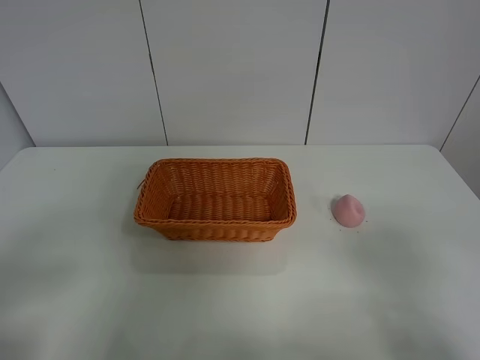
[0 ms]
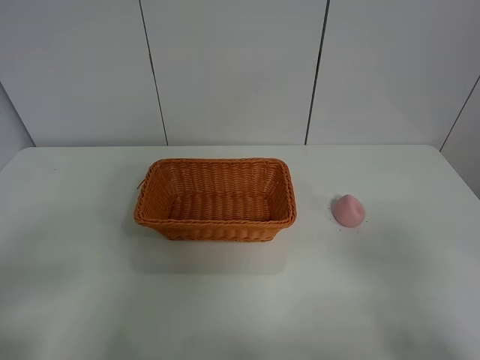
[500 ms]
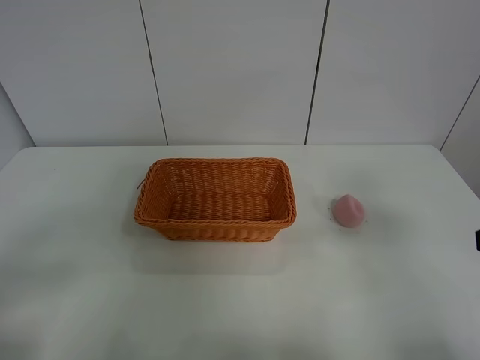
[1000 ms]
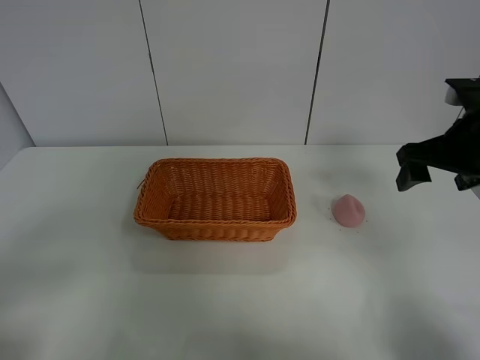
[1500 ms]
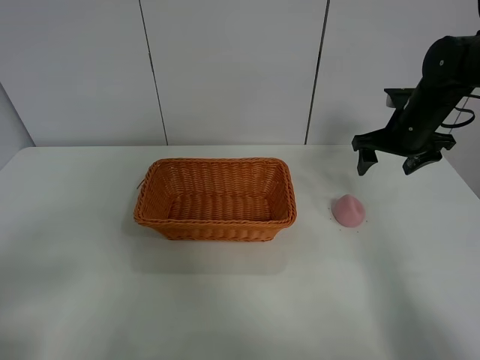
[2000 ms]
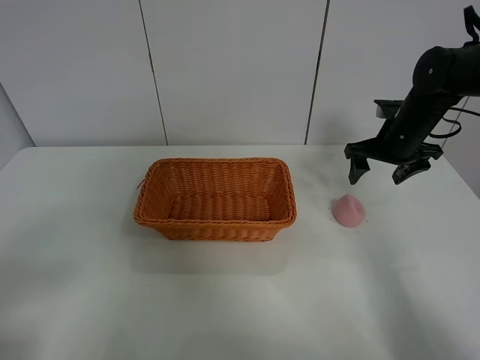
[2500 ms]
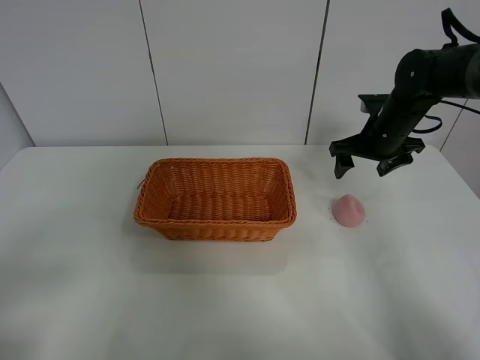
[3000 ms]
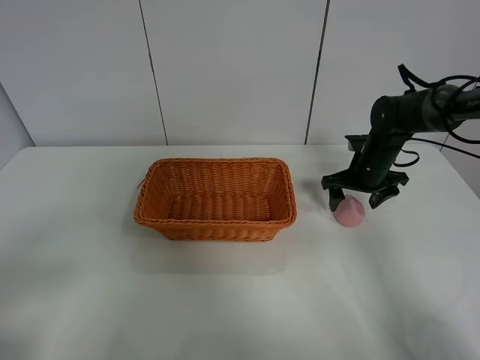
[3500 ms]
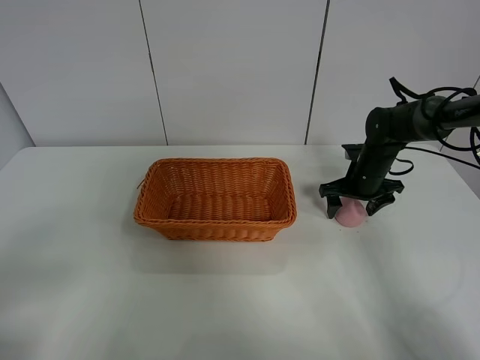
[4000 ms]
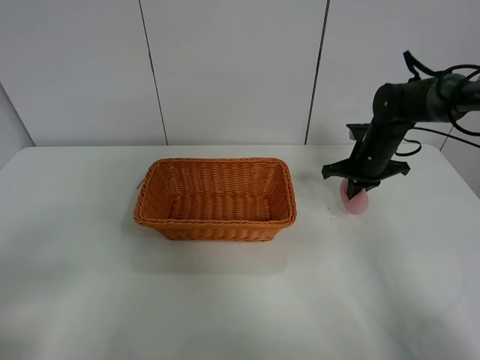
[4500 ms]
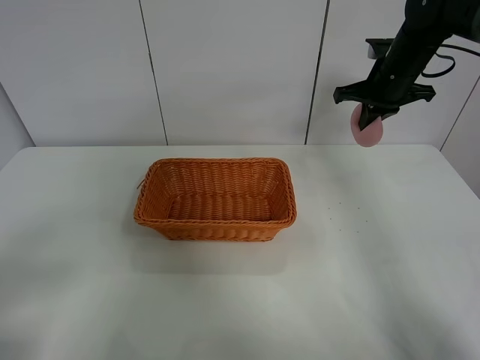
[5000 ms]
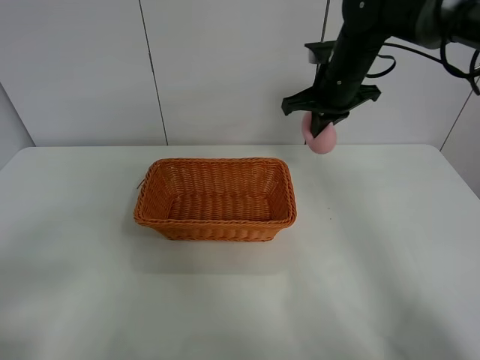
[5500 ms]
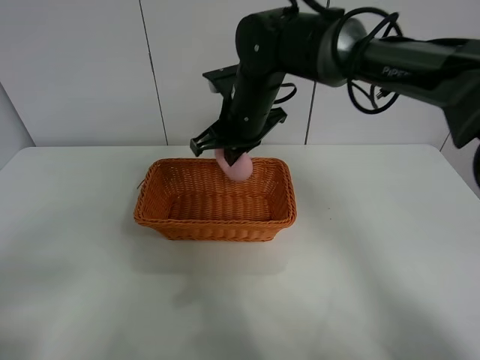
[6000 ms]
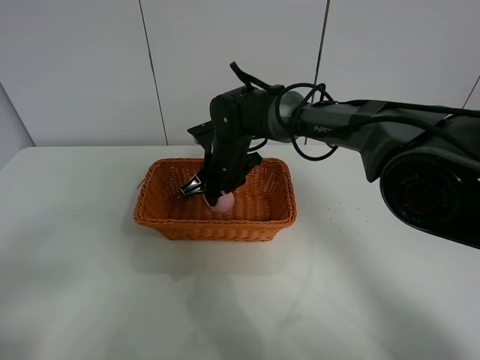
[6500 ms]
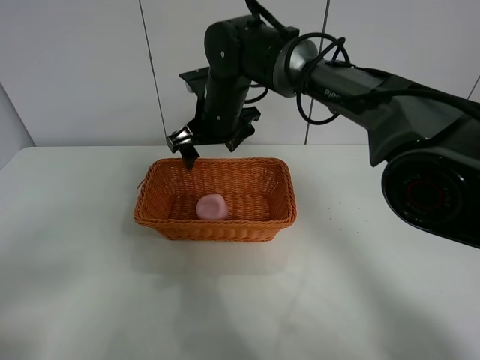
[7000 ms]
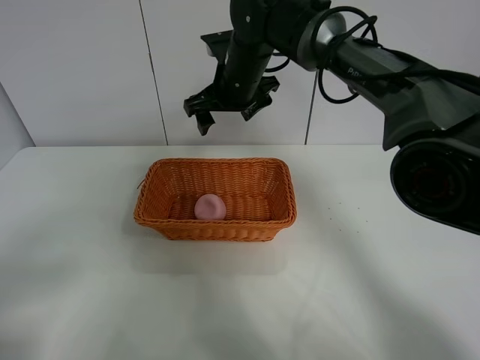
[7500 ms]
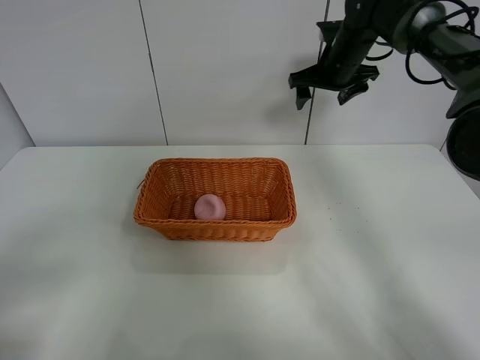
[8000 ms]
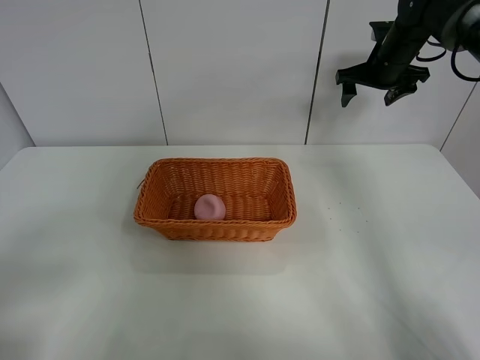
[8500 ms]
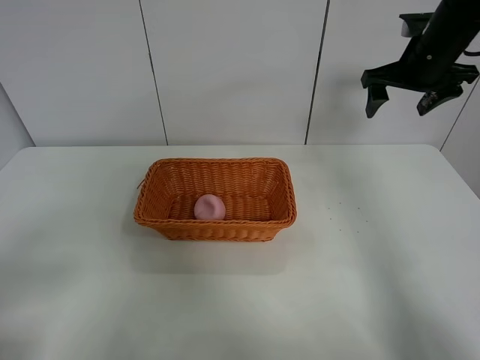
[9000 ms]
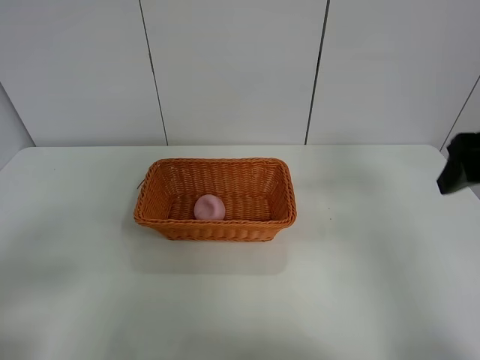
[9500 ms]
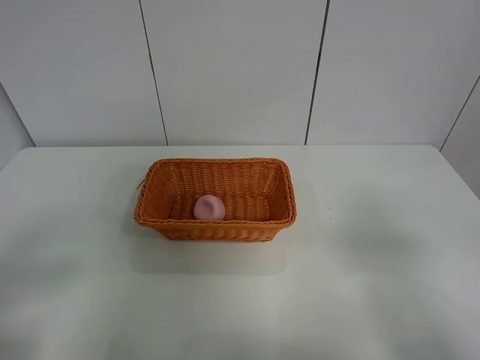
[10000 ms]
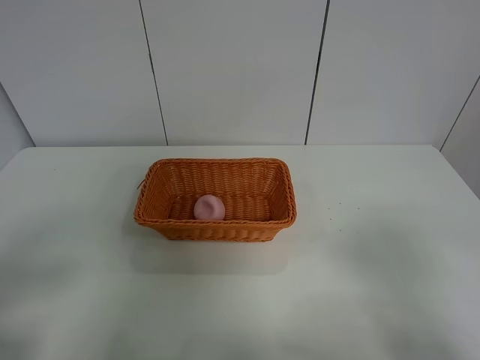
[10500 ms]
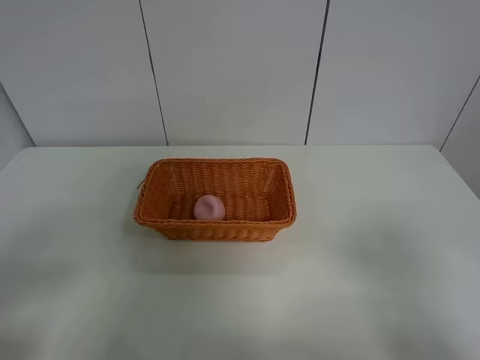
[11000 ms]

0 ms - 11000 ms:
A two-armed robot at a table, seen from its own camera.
Step, 0 ms - 4000 ms: Grasp the peach with right gripper.
Step, 4500 ms - 7000 ms: Place the peach in the basket with right gripper.
0 ms - 2000 ms: The right gripper shifts approximately 40 cm forward.
2000 ms - 3500 ms: The right gripper travels downward by approximately 10 cm.
3500 ms - 5500 ms: The right gripper goes roughly 20 cm upward and to the left, and closes up.
5500 ms - 7500 ms: The right gripper shifts about 10 cm to the left, and opens up.
7500 ms - 9000 ms: The right gripper shifts approximately 25 cm to the right.
9000 ms - 11000 ms: The right gripper heads backward, covering about 40 cm.
